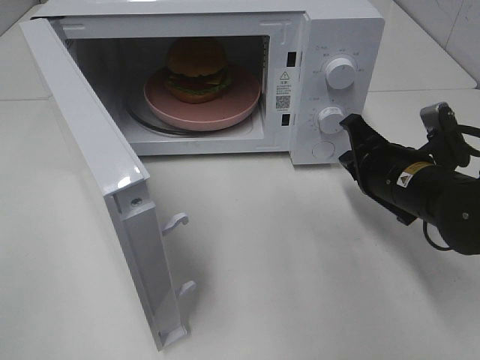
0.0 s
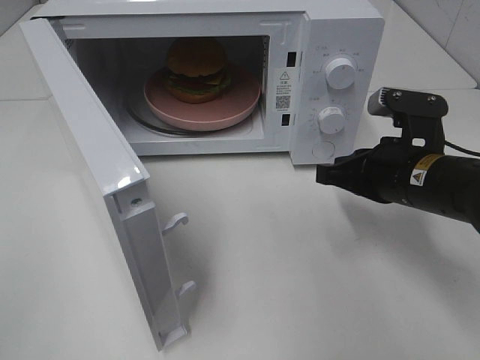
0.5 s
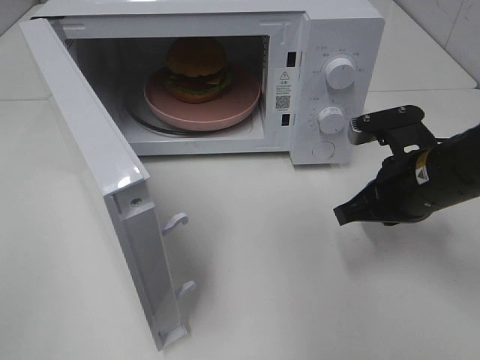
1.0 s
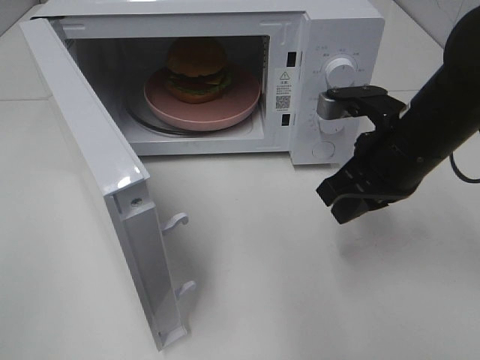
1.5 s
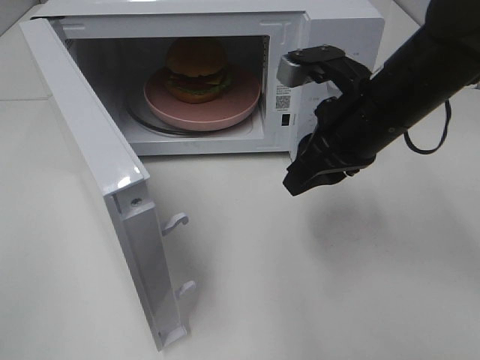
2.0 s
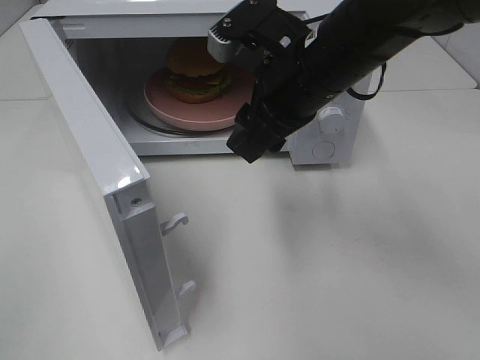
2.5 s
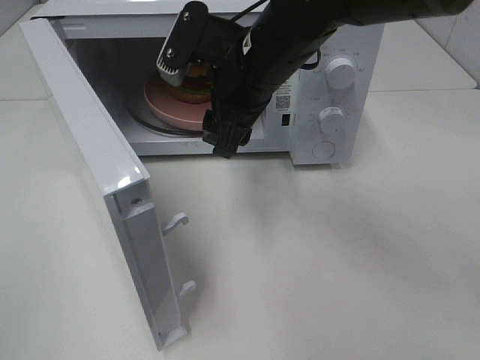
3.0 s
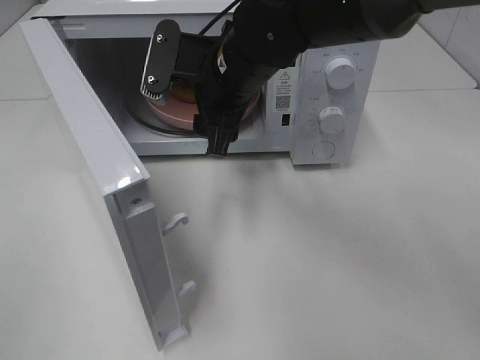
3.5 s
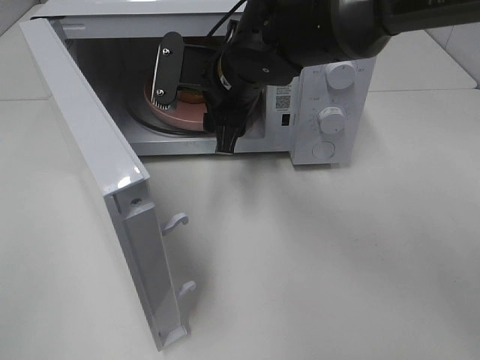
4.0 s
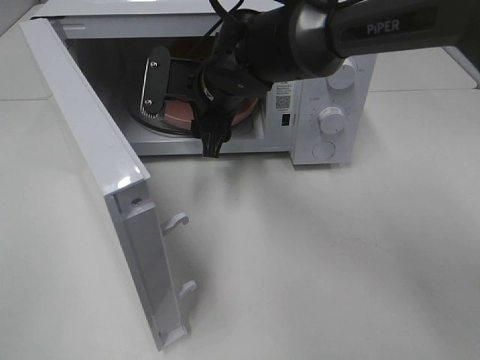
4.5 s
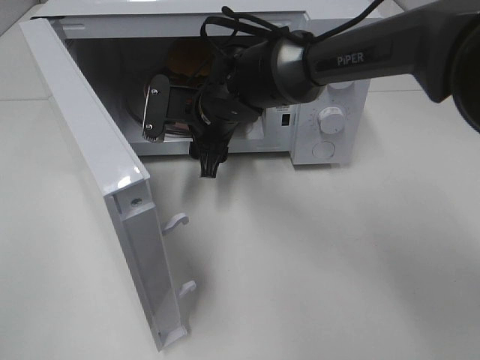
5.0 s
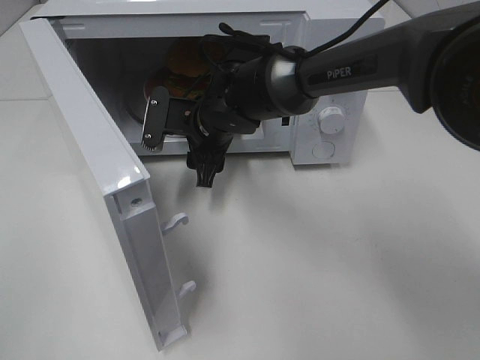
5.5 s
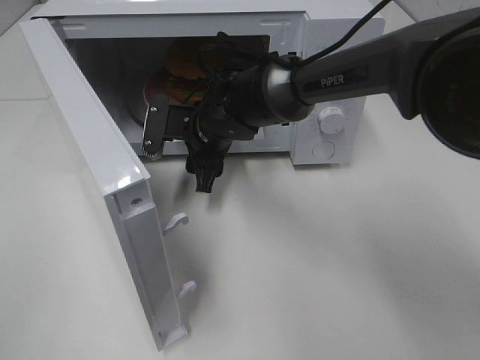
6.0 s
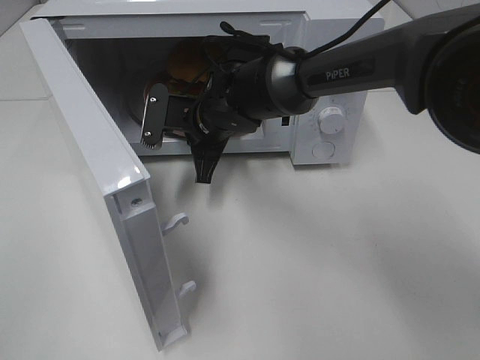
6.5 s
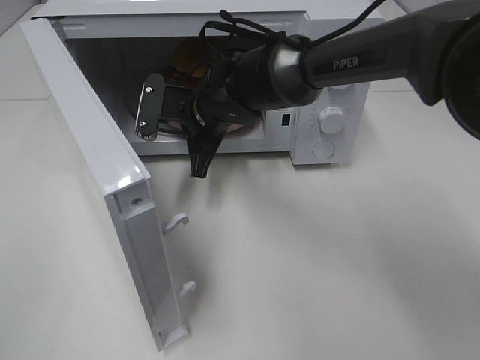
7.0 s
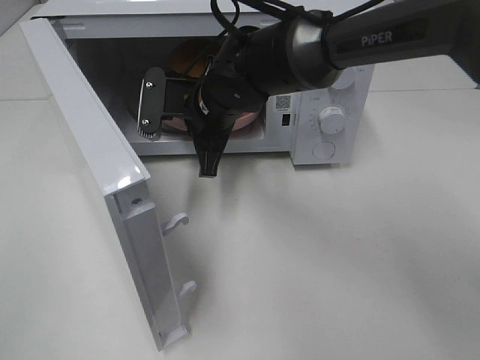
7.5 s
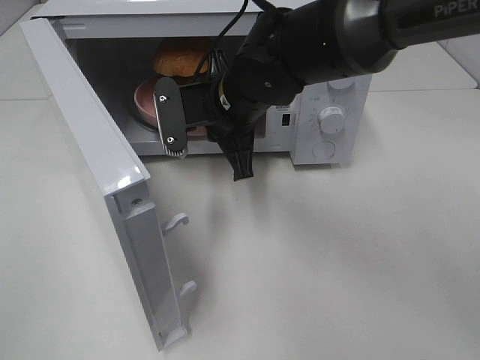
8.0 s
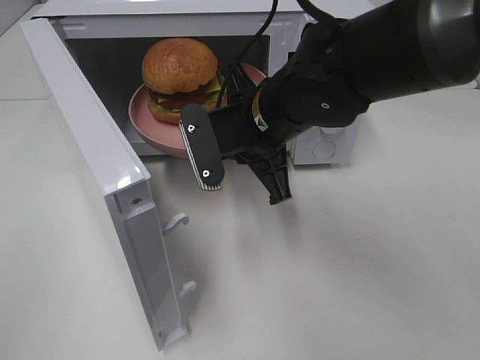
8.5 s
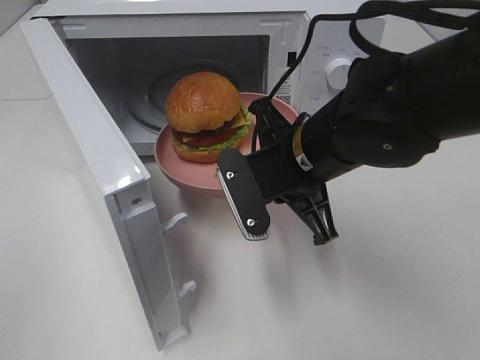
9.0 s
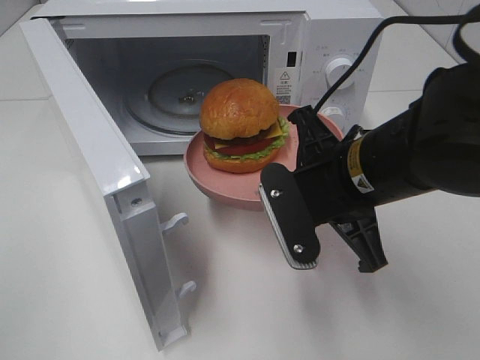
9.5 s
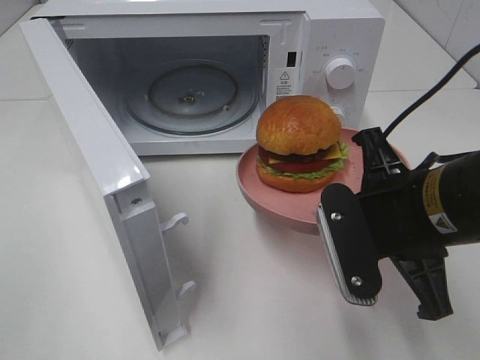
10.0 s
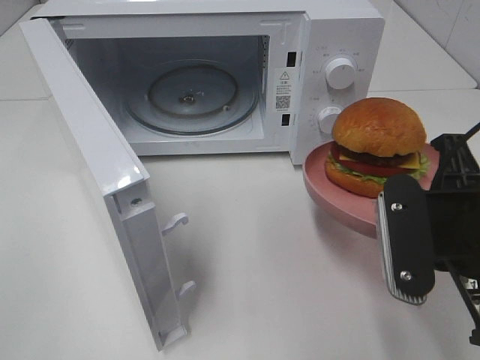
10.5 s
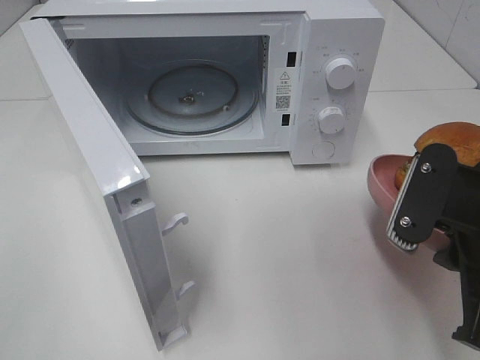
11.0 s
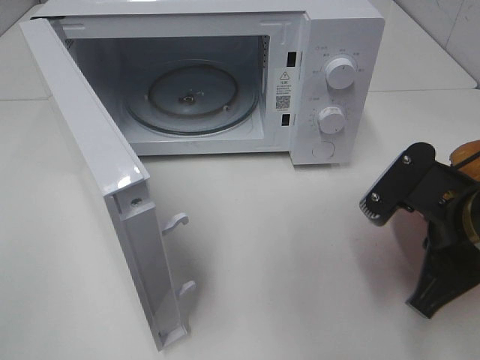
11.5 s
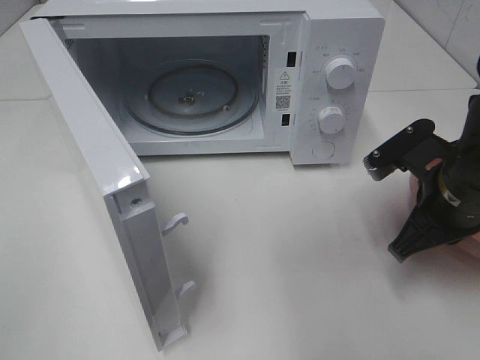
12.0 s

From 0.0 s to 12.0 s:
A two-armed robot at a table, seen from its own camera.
Task of the whole recording: Heat the burger.
Step, from 0.0 s to 6.5 s: Right hand: grab the plate with the hamburger.
From 0.0 s to 2.0 s: The right gripper goes some 10 cm upward and to the left.
From 2.0 s to 4.0 s: The right gripper is displaced to the left and forward by roughly 15 cm, and opens up.
From 4.0 s to 6.0 s: The right gripper heads downward, covering roughly 10 cm.
From 6.0 s to 8.0 s: The right gripper shifts roughly 10 cm upward, and closes its fingers.
From 8.0 s to 10.0 s: The right gripper is displaced backward and to the right by approximately 20 cm.
From 10.0 s to 12.0 s: The right gripper moves forward, to the right and downward, some 10 cm.

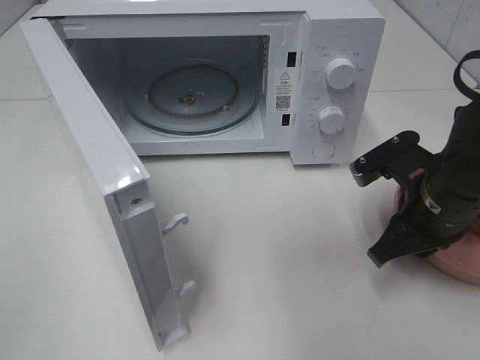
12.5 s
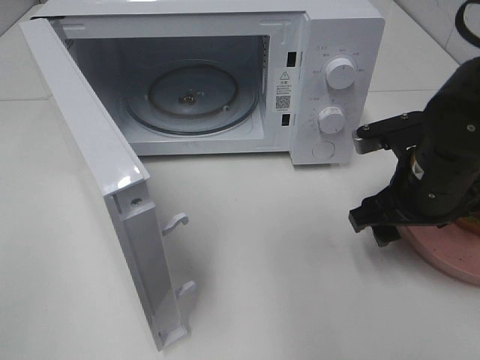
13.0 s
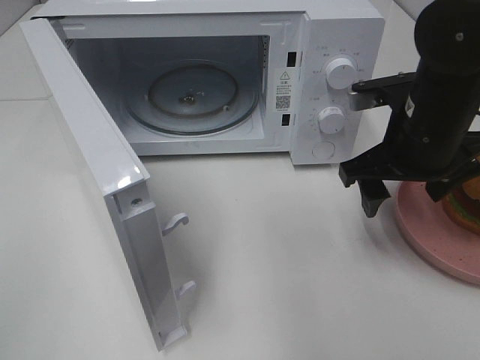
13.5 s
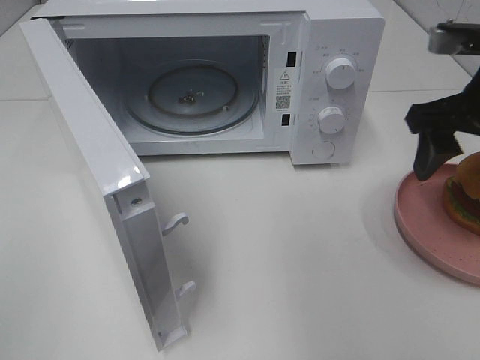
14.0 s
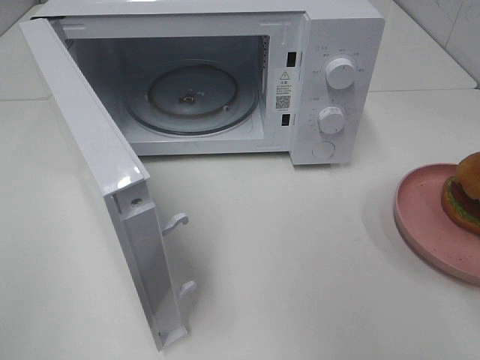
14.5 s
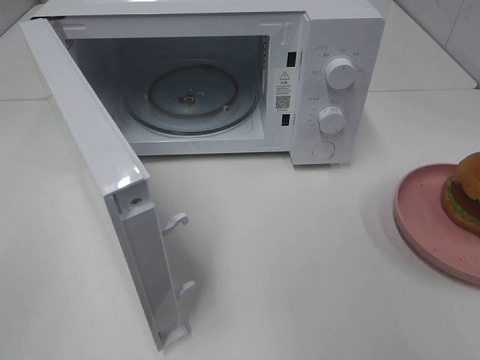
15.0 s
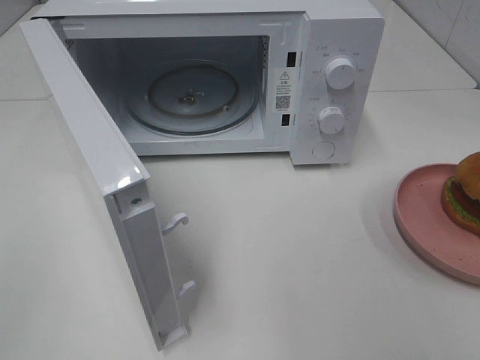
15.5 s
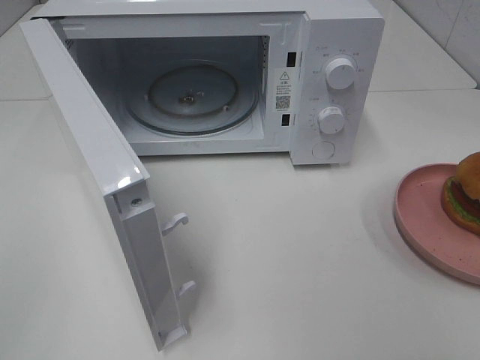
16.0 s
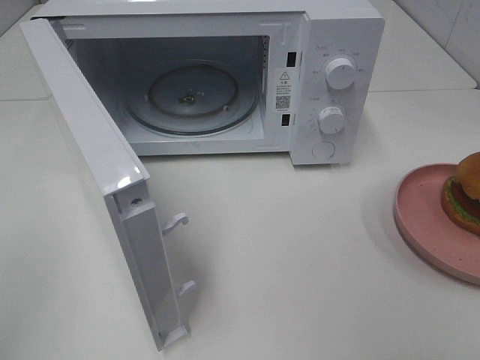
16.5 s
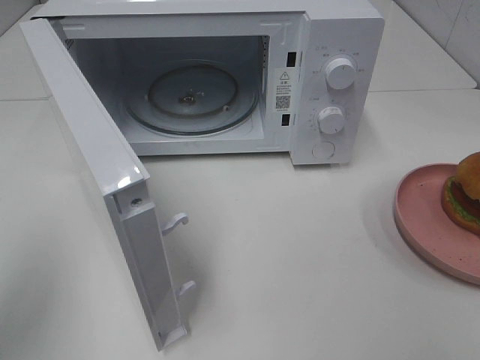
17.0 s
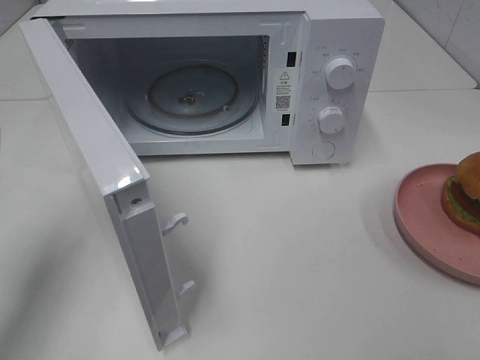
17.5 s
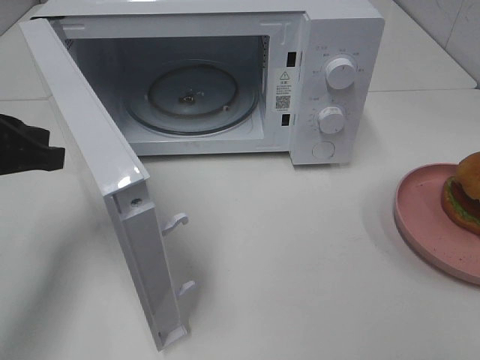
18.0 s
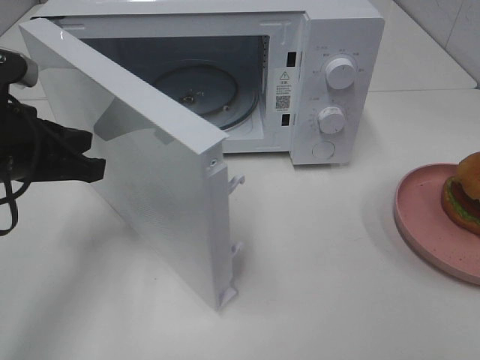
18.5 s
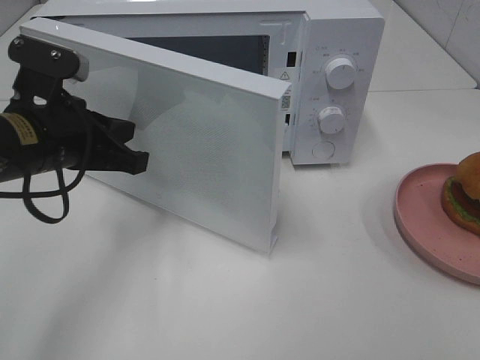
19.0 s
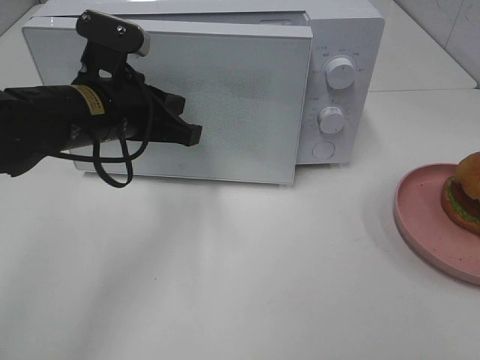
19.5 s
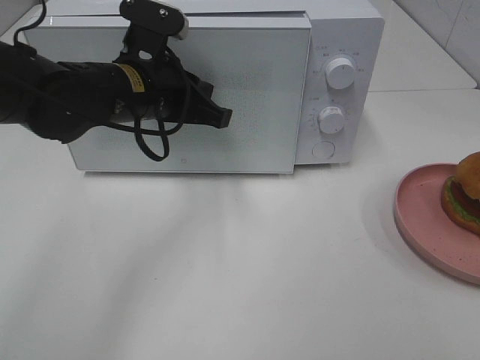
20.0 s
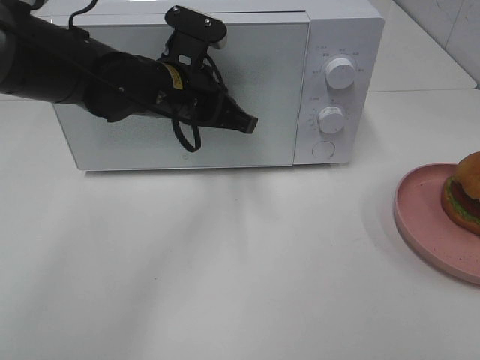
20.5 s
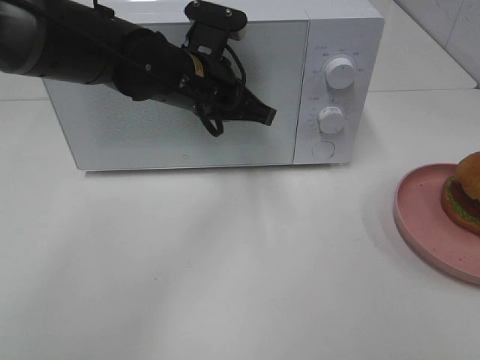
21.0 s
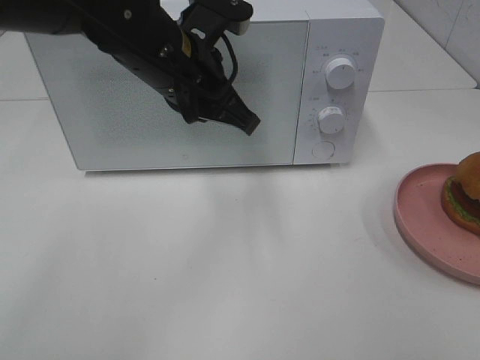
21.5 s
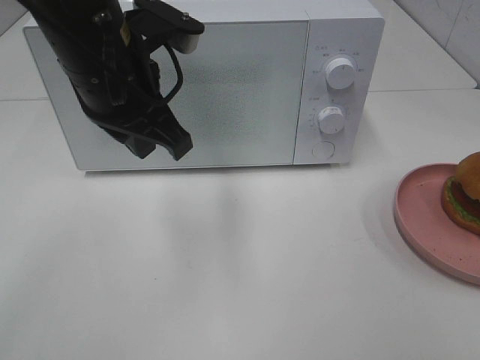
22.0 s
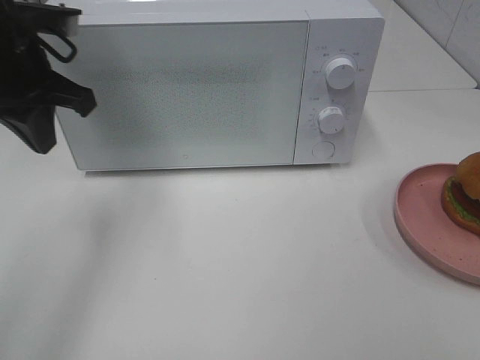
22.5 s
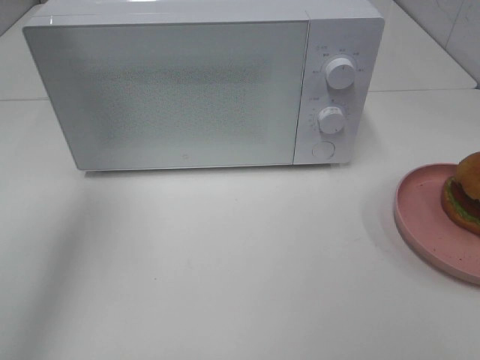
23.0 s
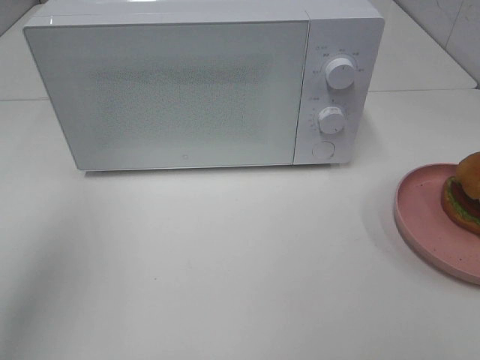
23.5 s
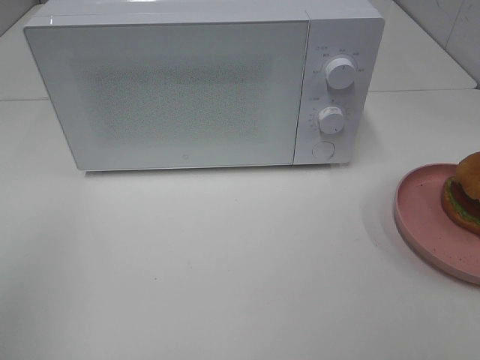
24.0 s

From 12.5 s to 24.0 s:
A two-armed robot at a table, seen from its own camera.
Task of the whole recording: Heat the burger.
Step, from 13.0 s to 21.0 s: Left hand: close the microwave door.
From 12.5 s to 14.5 s: The right gripper shifts some 20 cm upward and backward, and opens.
From 16.5 s to 18.5 s: The left gripper goes roughly 25 cm forward, downward and to the right.
From 18.5 s to 20.0 s: The left gripper heads to the right and forward, covering some 15 cm.
From 20.0 s to 22.0 s: The left gripper moves upward and backward, some 10 cm, and opens up.
From 22.0 s to 24.0 s: The left gripper is displaced backward and to the left by approximately 30 cm, and closes its fingers.

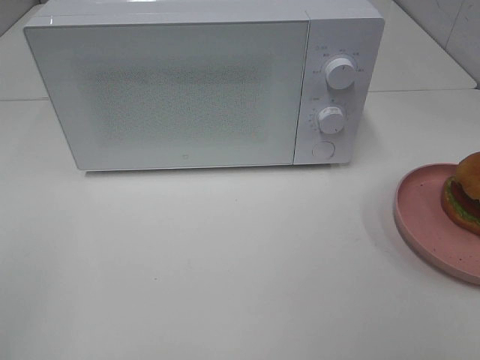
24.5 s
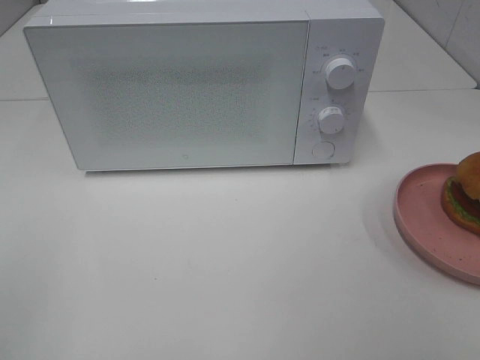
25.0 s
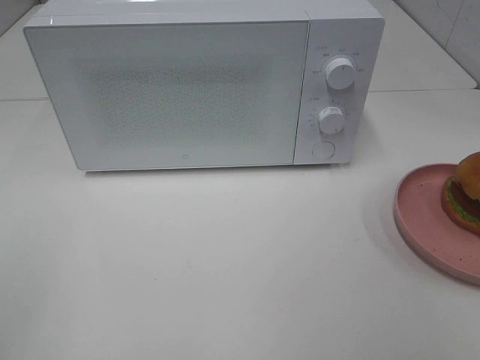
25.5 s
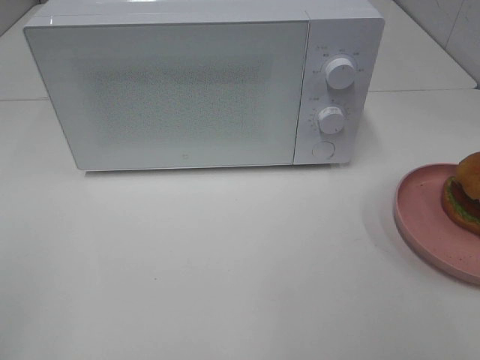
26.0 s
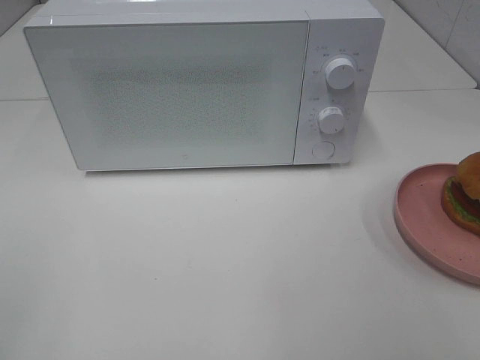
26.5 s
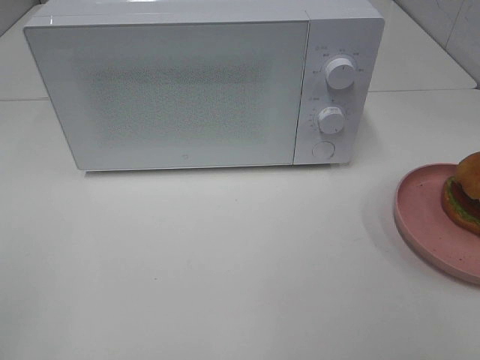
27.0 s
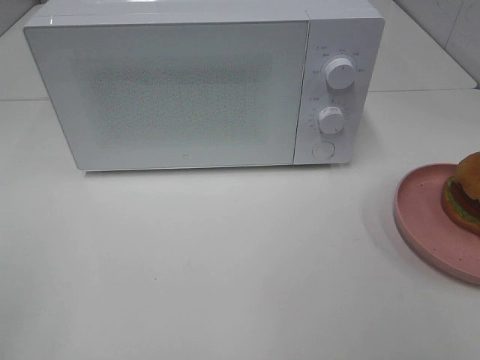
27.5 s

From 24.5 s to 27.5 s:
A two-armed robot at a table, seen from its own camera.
Task of the whole recording: Heat the burger.
From 26.0 s to 27.5 s: Both grippers stay put.
